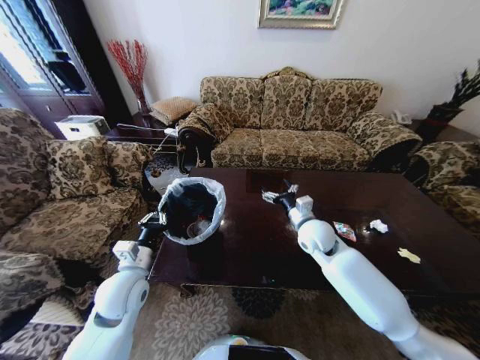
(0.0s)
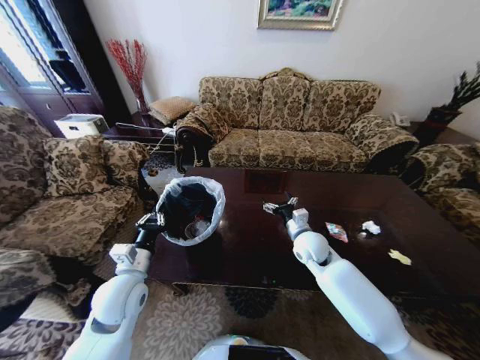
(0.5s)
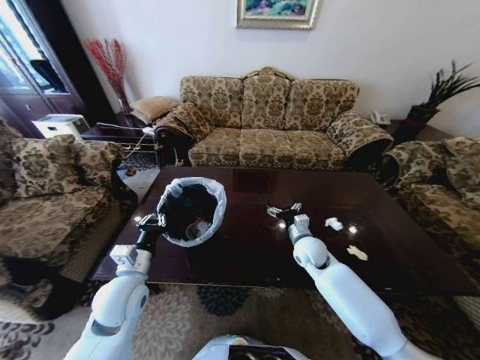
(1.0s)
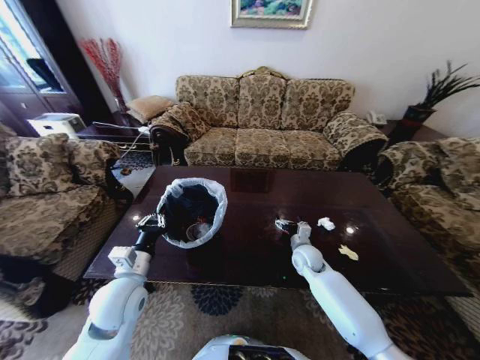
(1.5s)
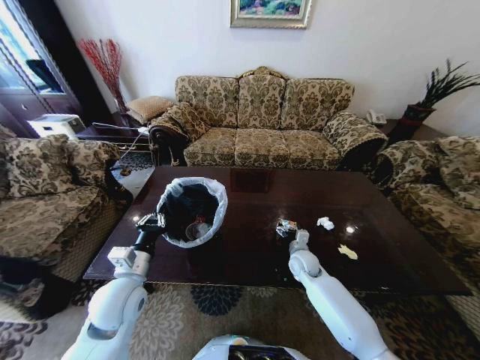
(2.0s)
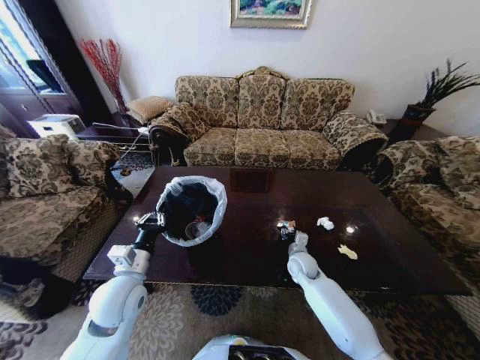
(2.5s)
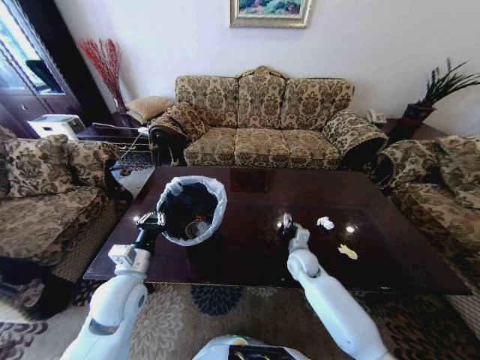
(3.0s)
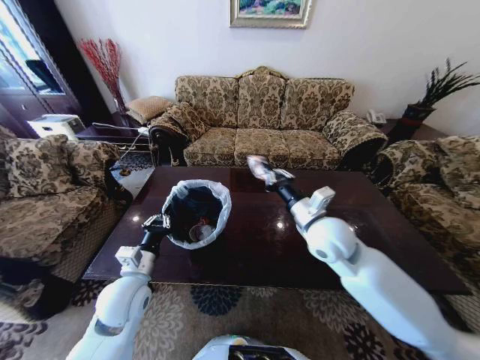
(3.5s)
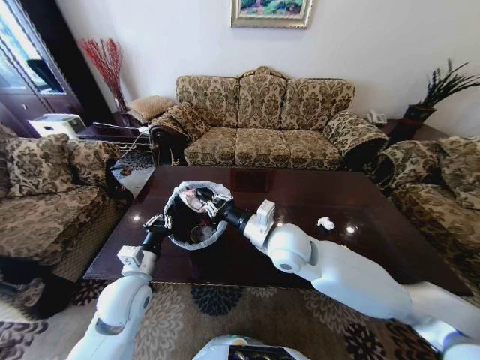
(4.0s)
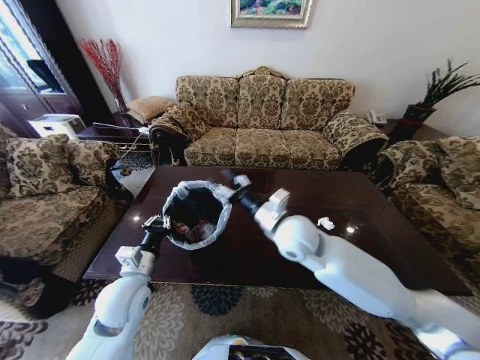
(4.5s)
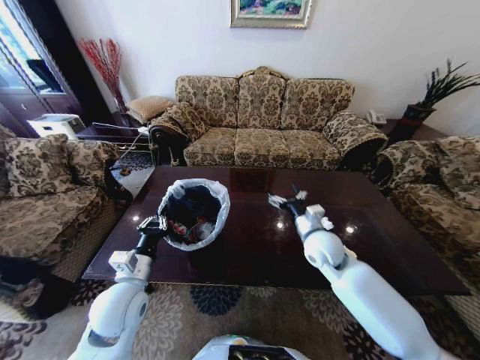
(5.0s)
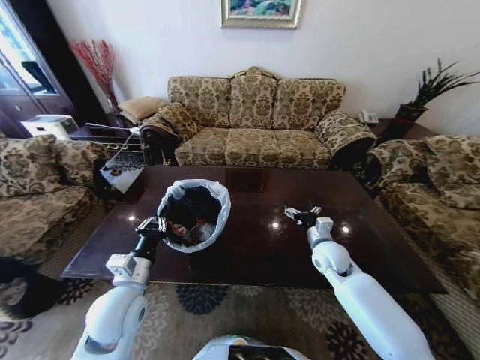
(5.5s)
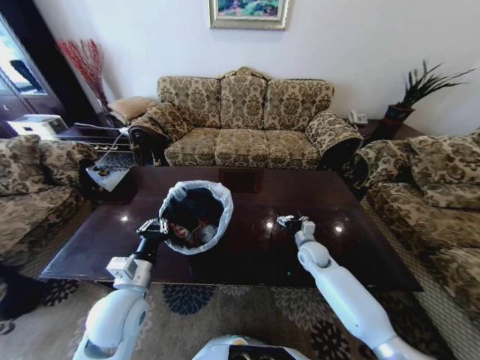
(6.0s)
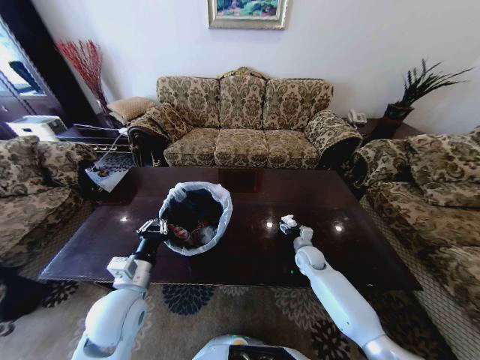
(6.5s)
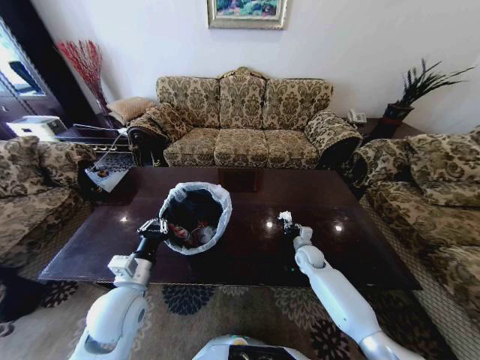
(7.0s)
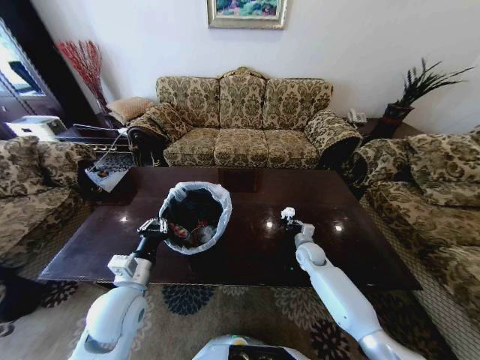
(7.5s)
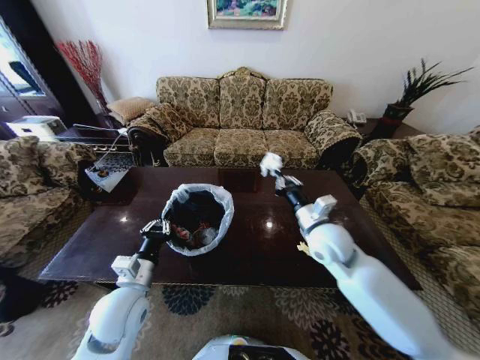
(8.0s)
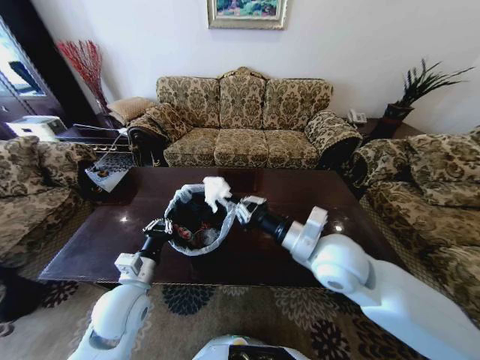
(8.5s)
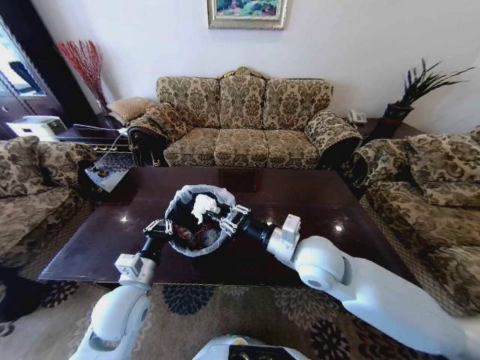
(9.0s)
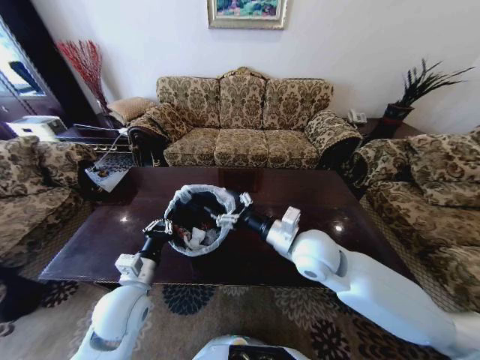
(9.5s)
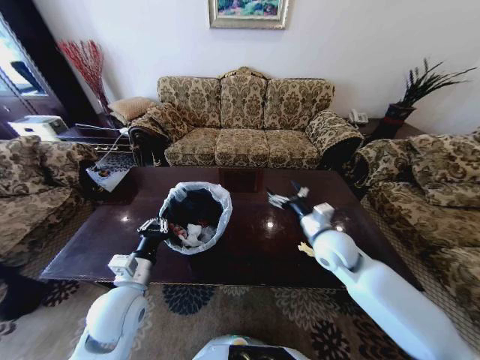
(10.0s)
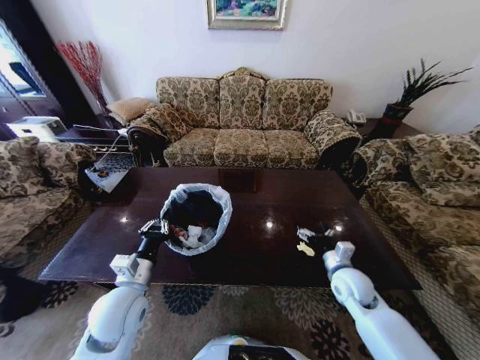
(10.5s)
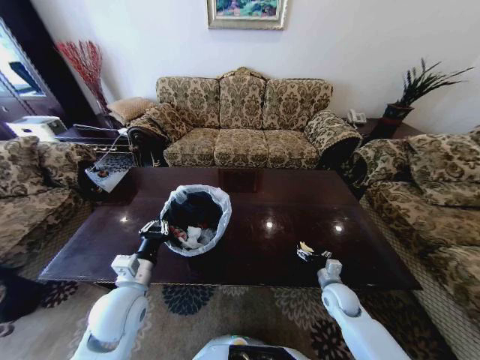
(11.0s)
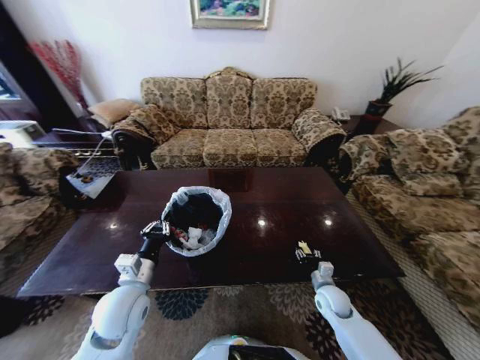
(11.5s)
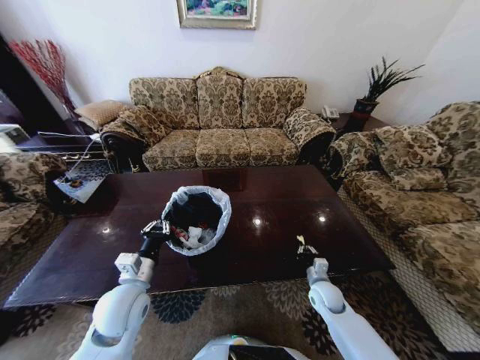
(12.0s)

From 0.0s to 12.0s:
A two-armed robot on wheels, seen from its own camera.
Task of the whole recording: Move to the front of the table and place the trash on the table into the trash bin.
From 0.0s to 2.0s: The right gripper is displaced downward by about 15 cm.
From 2.0s to 4.0s: The right gripper travels upward and to the left by approximately 25 cm, and closes up.
From 4.0s to 6.0s: The right gripper heads downward, to the right and forward, covering some 30 cm, and opens up.
From 6.0s to 8.0s: The right gripper travels upward by roughly 20 cm, and closes.
From 8.0s to 10.0s: The right gripper moves approximately 5 cm to the left and comes back, and opens its fingers.
From 10.0s to 12.0s: The right gripper moves downward, some 25 cm, and closes up.

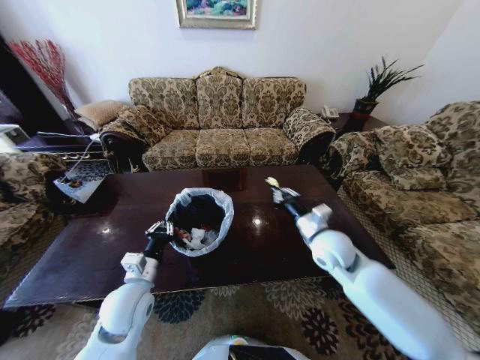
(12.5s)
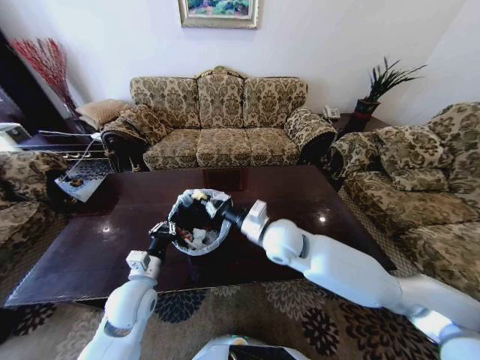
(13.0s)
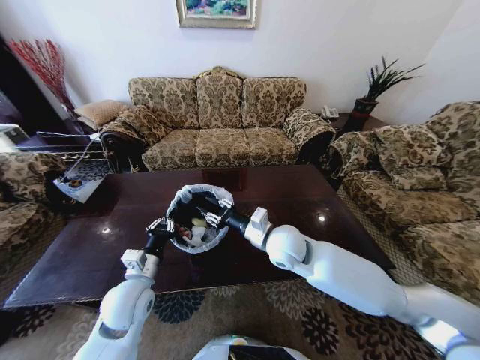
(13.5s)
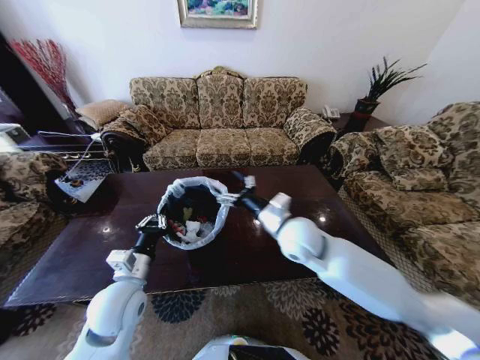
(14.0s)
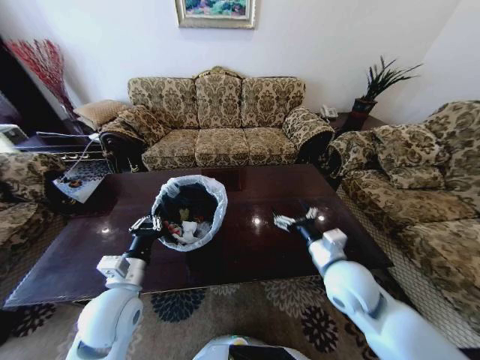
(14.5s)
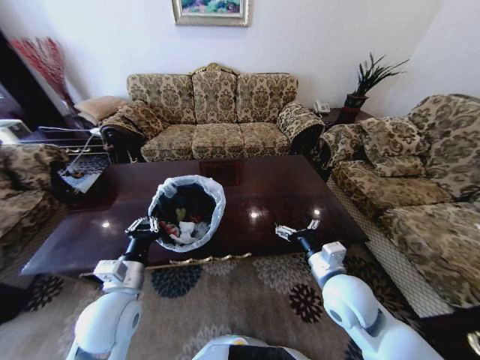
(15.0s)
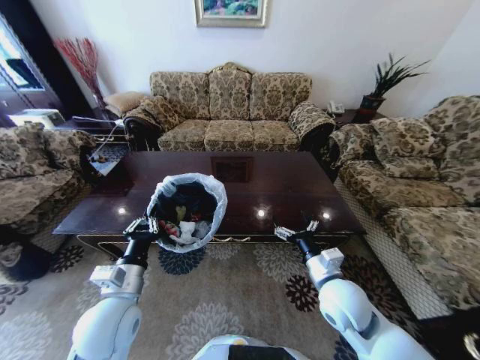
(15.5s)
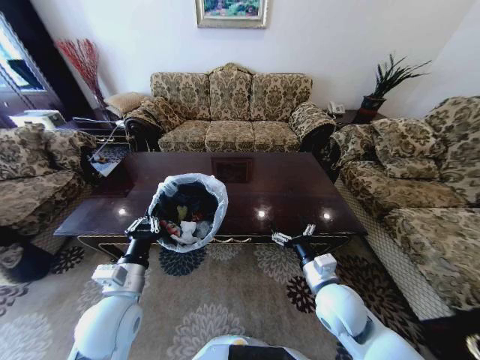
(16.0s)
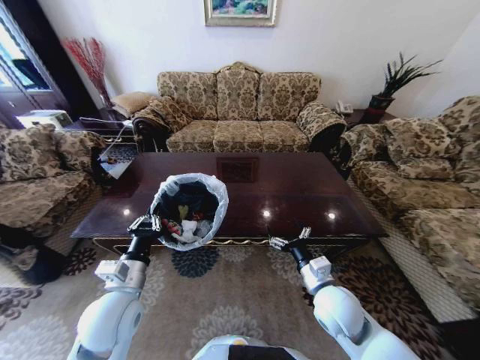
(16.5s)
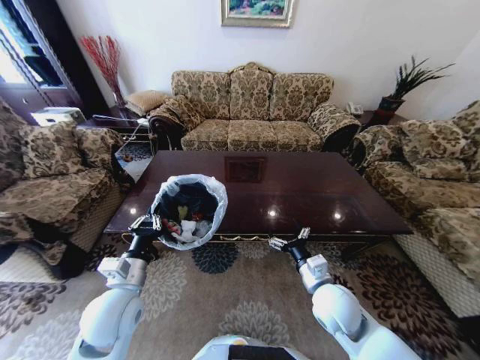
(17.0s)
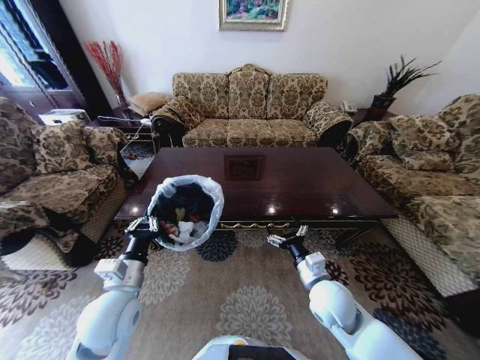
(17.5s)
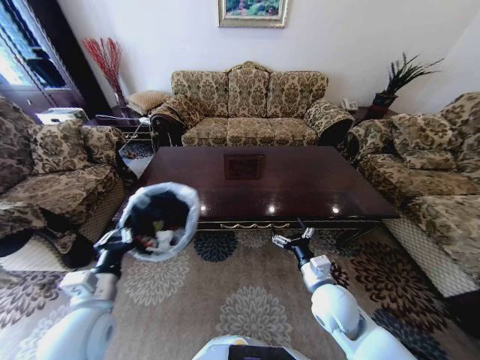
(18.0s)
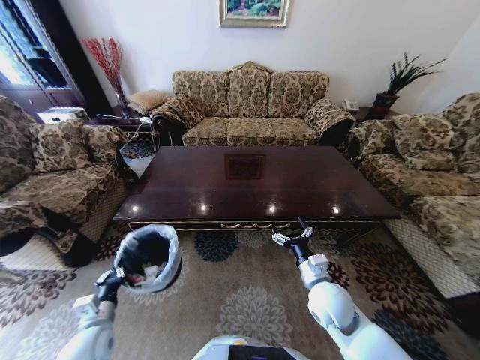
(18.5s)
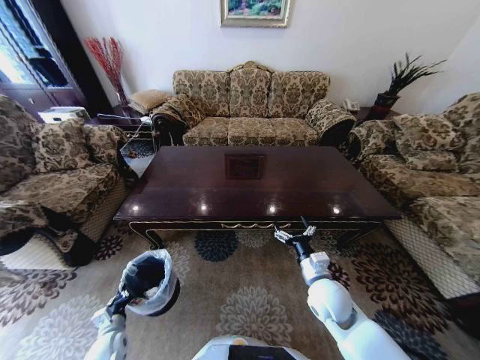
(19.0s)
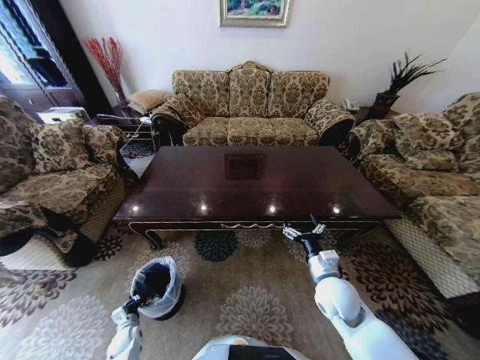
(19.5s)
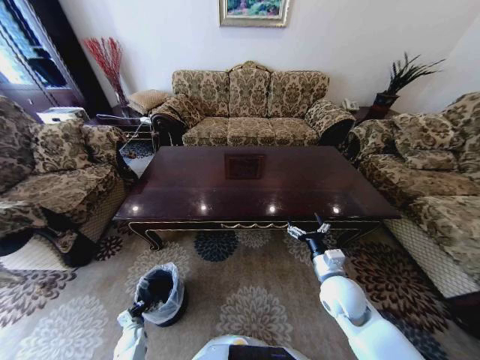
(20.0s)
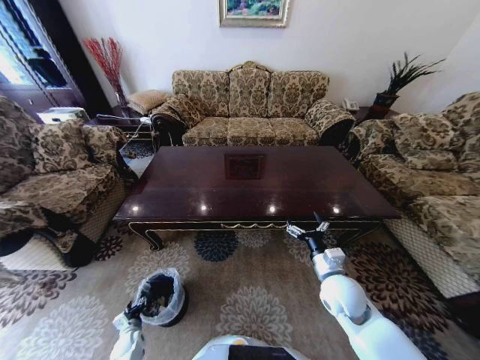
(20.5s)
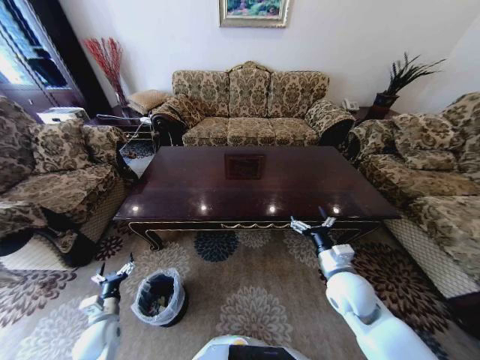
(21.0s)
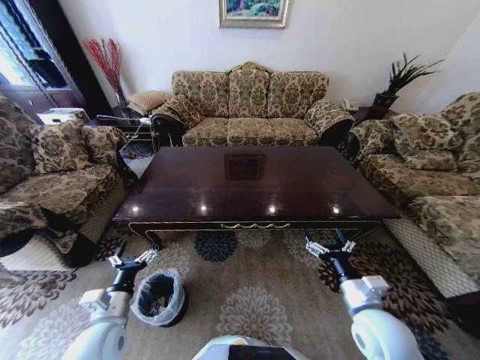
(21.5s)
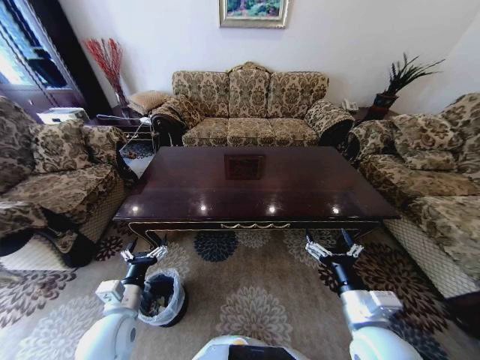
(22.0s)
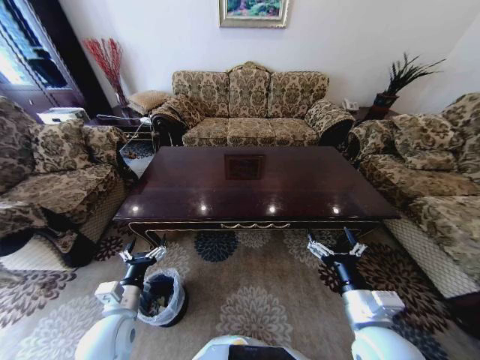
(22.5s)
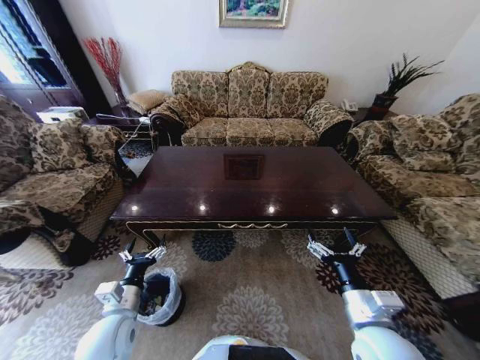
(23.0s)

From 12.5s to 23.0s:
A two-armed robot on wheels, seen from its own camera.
Task of the whole recording: Move to the front of the table and place the trash on the table into the trash bin.
From 12.5s to 14.5s: The right gripper is displaced backward by about 10 cm, moves some 15 cm to the left and comes back, and opens.
From 14.5s to 16.5s: The right gripper goes roughly 5 cm downward.
From 16.5s to 19.0s: The left gripper travels downward and to the left by roughly 30 cm.
From 19.0s to 21.0s: The left gripper travels downward and back again, roughly 10 cm each way, and opens.
From 21.0s to 23.0s: The left gripper heads upward and to the right, covering about 20 cm. The right gripper shifts roughly 10 cm backward.

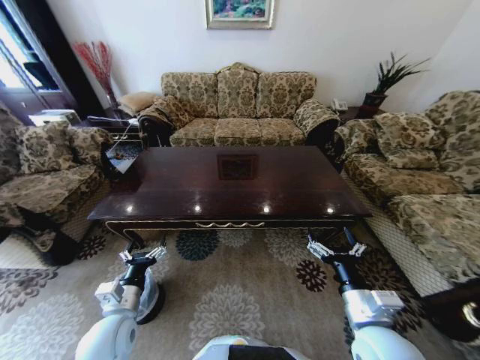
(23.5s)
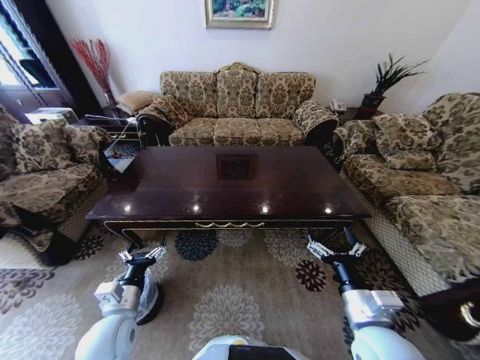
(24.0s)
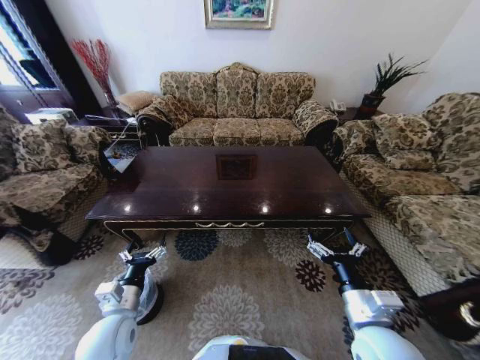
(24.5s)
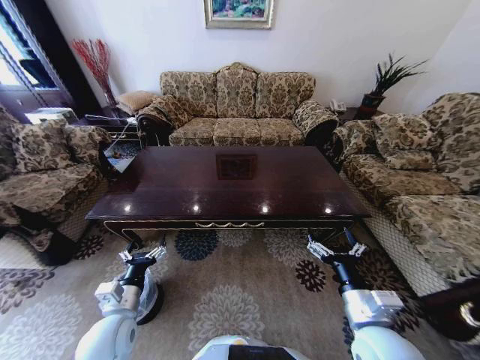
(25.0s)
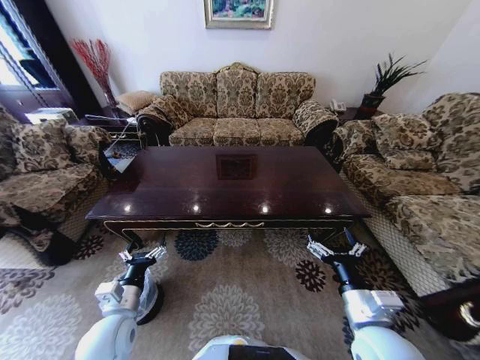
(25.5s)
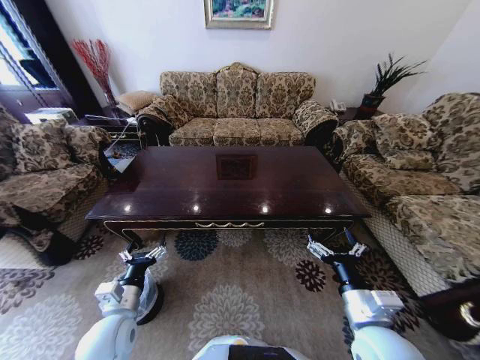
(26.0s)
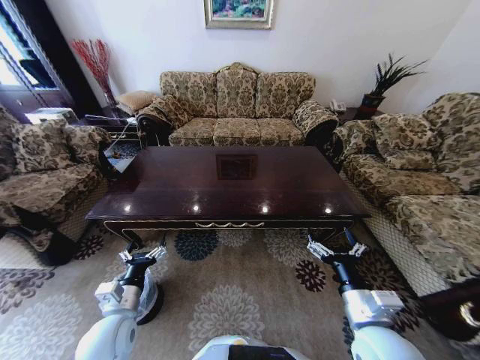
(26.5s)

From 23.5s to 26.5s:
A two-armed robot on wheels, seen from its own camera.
Task of the whole recording: Move to the front of the table and place the trash on the table into the trash bin.
From 23.5s to 26.5s: The two grippers keep their place.
